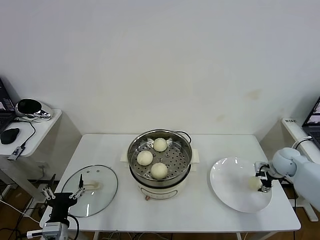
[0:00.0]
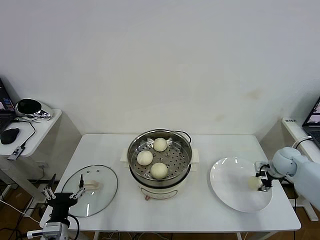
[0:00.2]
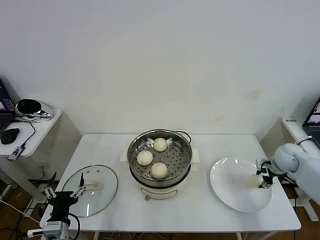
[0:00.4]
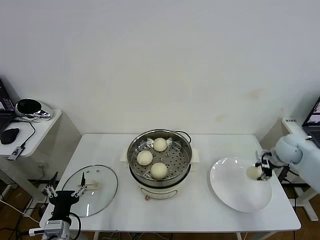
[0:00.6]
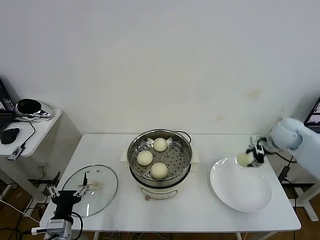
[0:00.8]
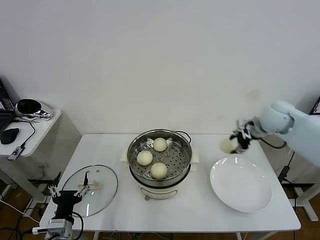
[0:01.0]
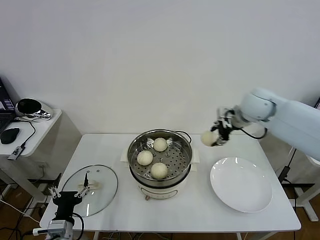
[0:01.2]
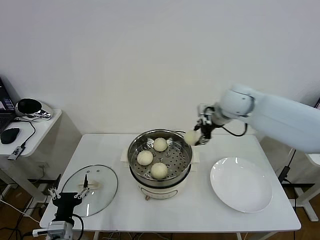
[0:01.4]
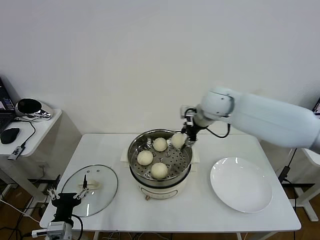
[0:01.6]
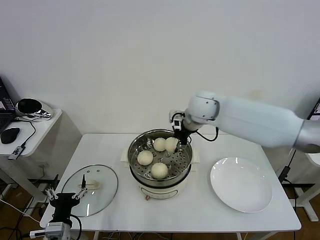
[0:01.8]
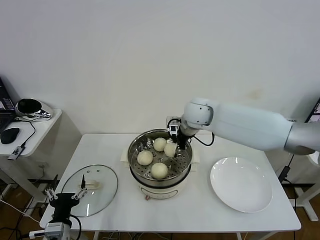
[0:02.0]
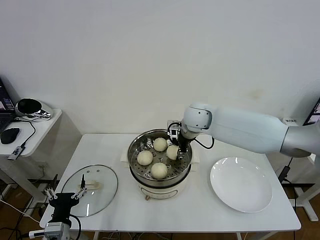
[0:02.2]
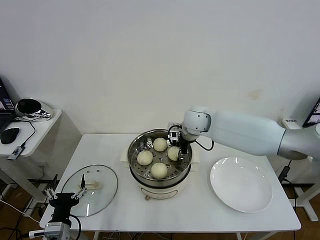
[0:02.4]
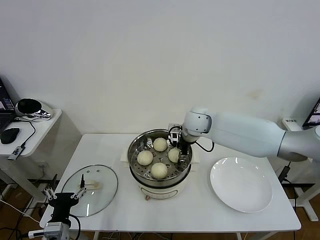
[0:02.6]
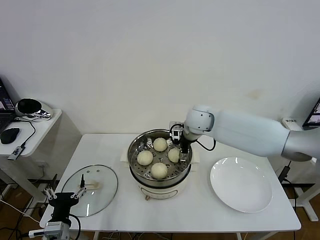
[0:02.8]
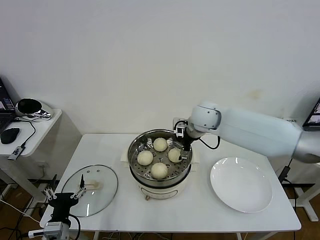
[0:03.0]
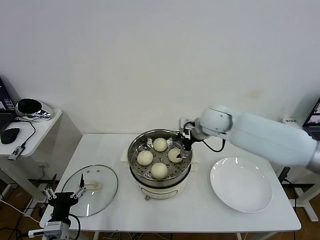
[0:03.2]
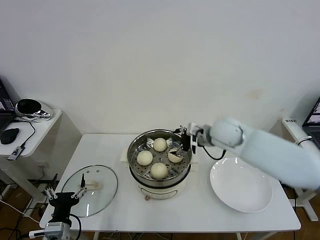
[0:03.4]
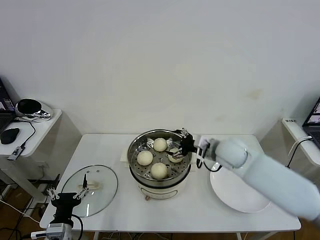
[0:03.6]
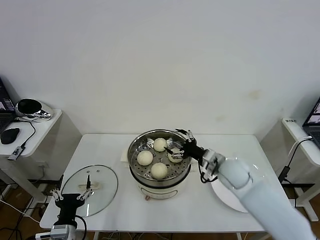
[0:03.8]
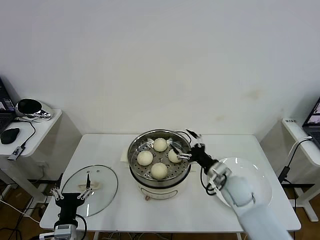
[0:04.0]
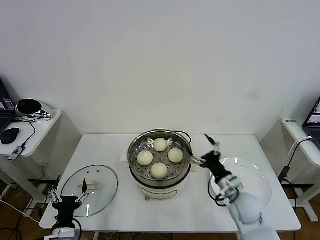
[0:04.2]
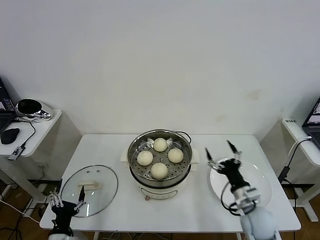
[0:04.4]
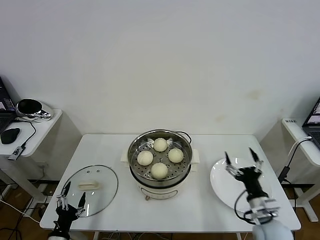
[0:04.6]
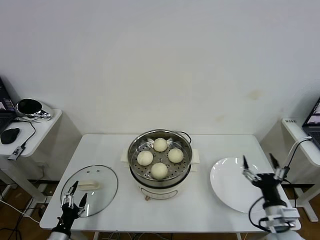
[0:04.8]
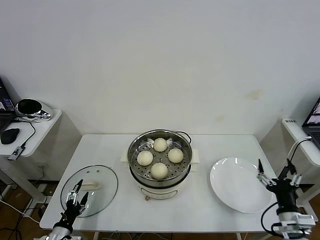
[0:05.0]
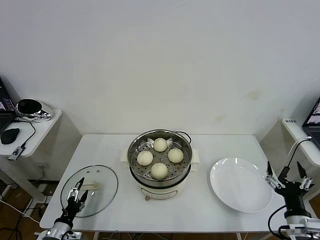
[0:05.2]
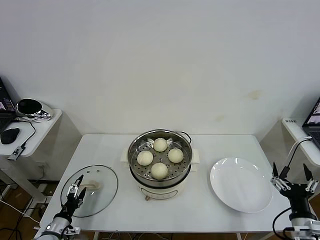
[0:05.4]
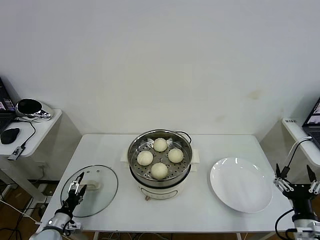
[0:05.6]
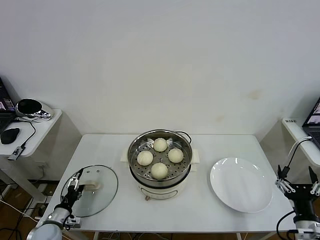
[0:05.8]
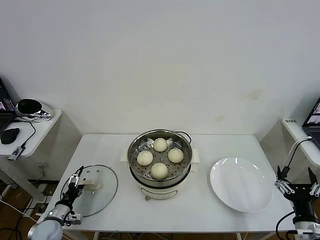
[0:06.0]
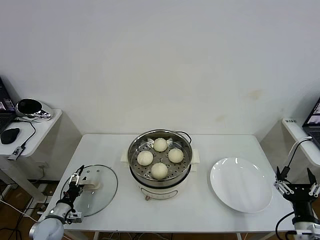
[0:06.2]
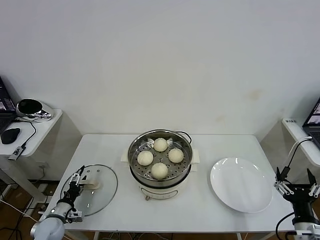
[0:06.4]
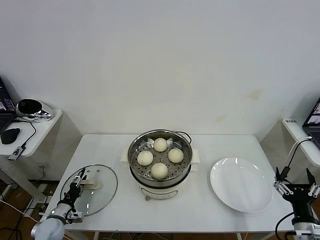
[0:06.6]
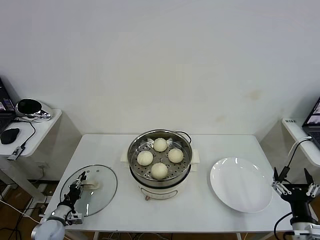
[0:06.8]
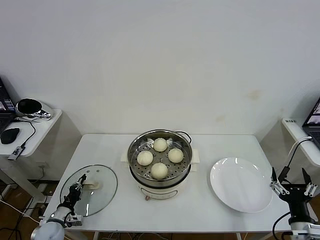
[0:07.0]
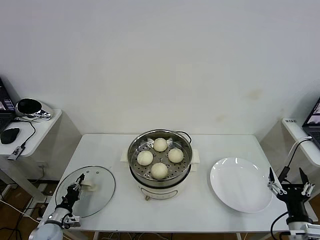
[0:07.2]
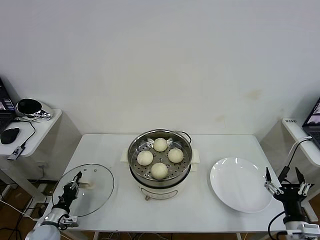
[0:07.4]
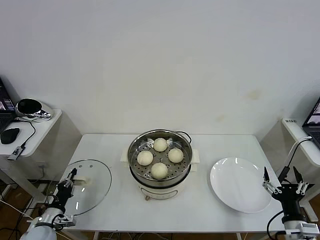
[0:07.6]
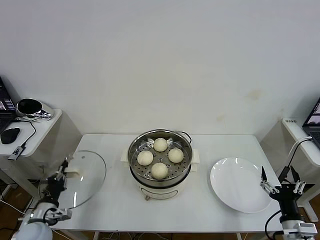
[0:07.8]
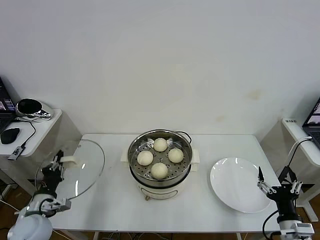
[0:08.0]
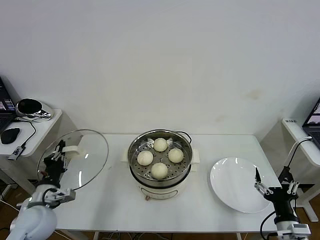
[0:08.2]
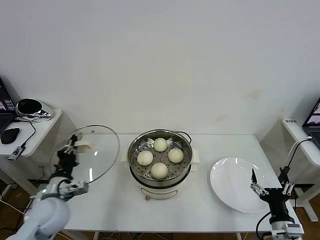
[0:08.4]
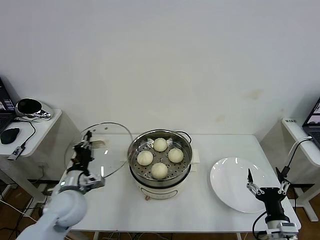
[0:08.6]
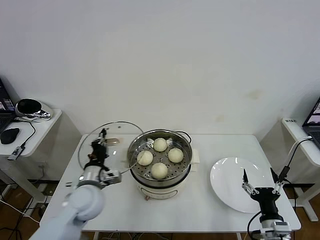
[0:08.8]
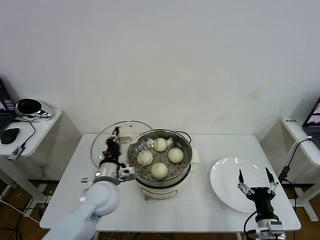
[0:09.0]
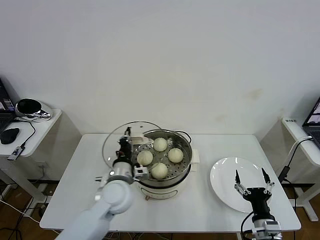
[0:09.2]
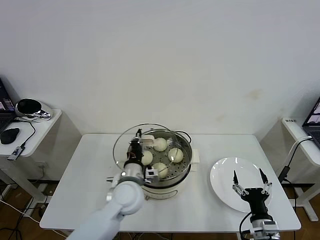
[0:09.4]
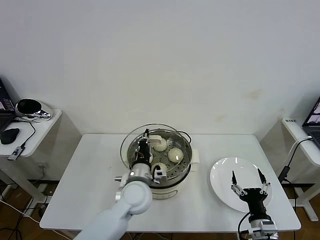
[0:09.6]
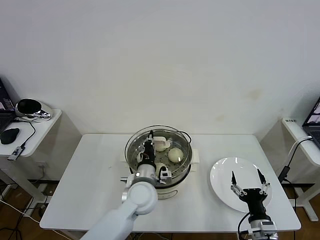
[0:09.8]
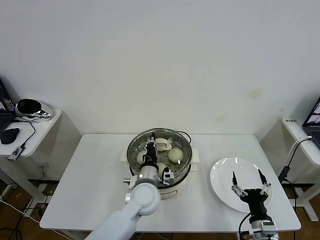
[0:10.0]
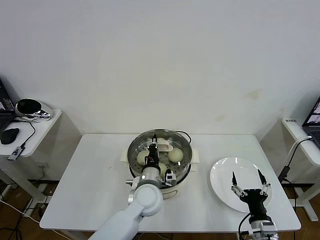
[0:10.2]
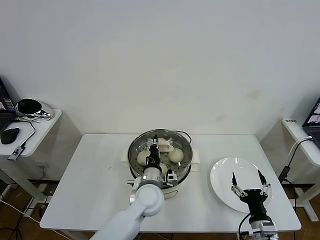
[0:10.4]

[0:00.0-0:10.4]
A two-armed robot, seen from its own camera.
Task of the whole recording: take steamed baozi put them in steamer then cover it.
Step, 0:00.4 to 0:03.0: Place the baozi on the steamer with right gripper.
Step, 0:03.2 to 0:07.2: Grasp the pot lid with left gripper.
0:00.0 to 0:01.4: The right gripper is displaced to the left and upward by roughly 35 cm.
0:01.4 to 0:03.0: The right gripper travels to the left and downward by approximately 10 cm, and opens its fingers.
0:03.0 to 0:04.4: The left gripper is displaced downward by approximately 5 cm; the right gripper shifts approximately 35 cm backward, downward and to the right.
0:04.4 to 0:06.0: The right gripper moves backward and to the right, roughly 15 cm, while the left gripper moves forward, to the left and downward, approximately 15 cm.
0:06.0 to 0:07.4: The left gripper closes its fingers.
0:07.4 to 0:09.0: The left gripper goes about 30 cm to the right and upward, while the right gripper shifts approximately 5 cm to the left.
0:09.0 to 0:10.4: The left gripper goes about 15 cm to the right.

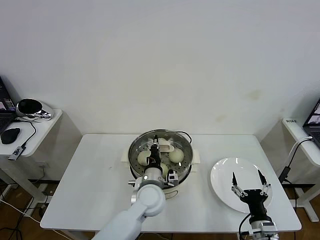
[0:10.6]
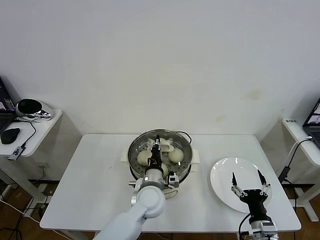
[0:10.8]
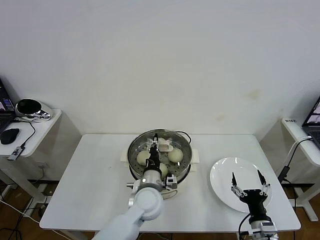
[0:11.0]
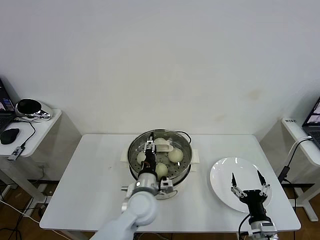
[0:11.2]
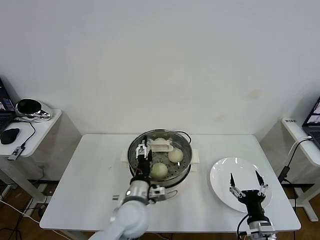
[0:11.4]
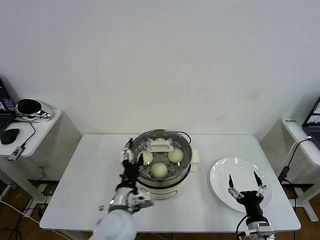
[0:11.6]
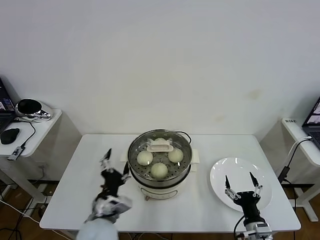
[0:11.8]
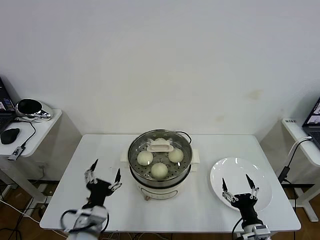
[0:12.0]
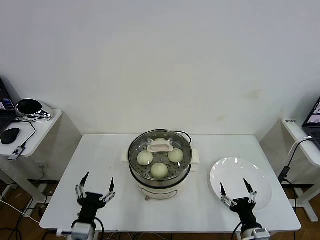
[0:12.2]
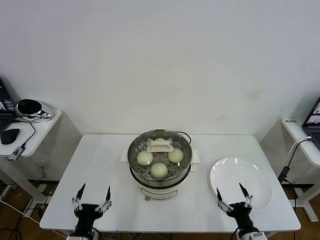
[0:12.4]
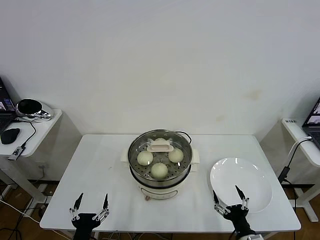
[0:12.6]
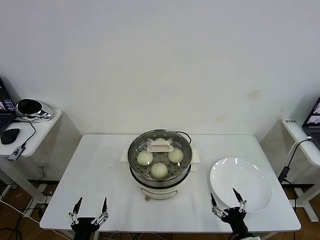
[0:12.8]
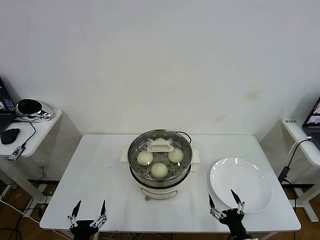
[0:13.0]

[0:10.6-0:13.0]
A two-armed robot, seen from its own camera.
Task of the whole recording: take steamed baozi put them in steamer then cover it.
0:10.6 to 0:11.8: The left gripper is displaced backward and to the left by approximately 15 cm, and opens its fingers.
0:11.8 to 0:13.0: The right gripper shifts by roughly 5 cm; the left gripper is displaced backward, downward and to the left by approximately 20 cm.
